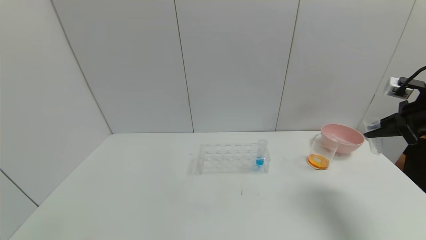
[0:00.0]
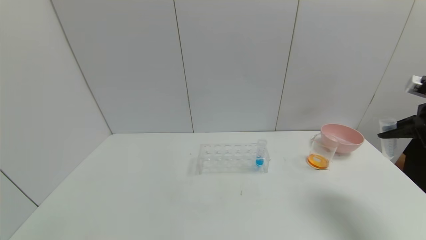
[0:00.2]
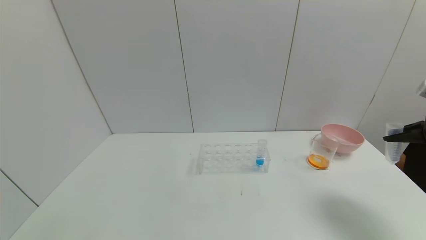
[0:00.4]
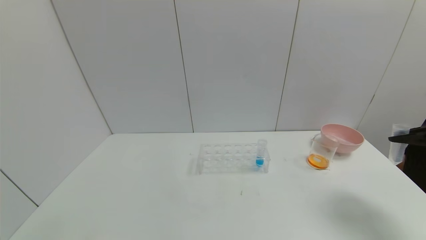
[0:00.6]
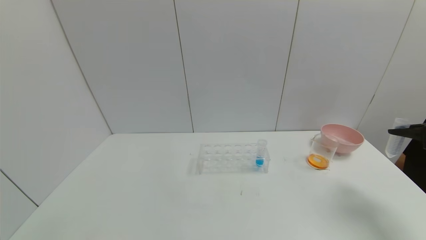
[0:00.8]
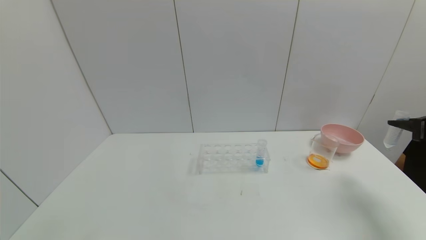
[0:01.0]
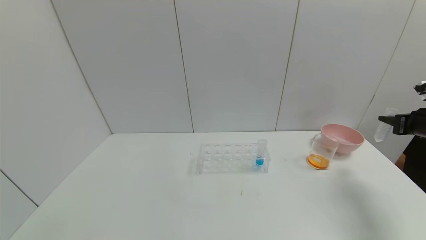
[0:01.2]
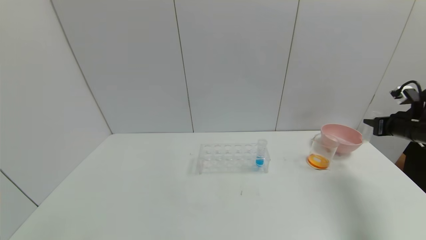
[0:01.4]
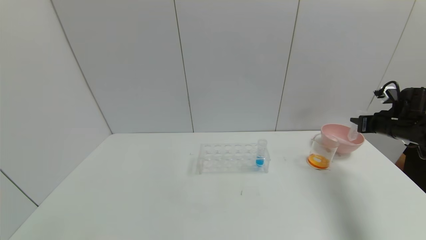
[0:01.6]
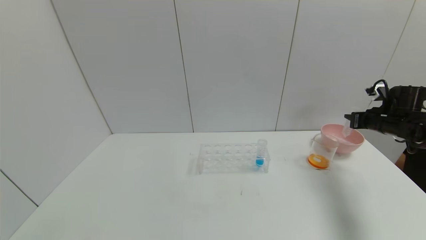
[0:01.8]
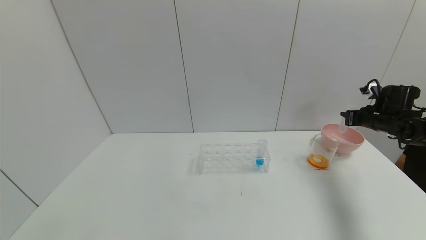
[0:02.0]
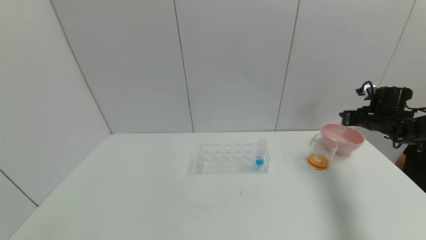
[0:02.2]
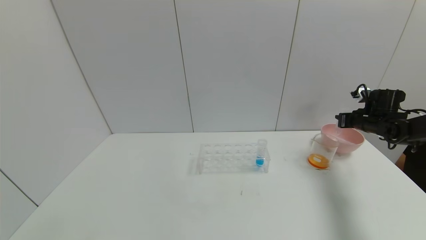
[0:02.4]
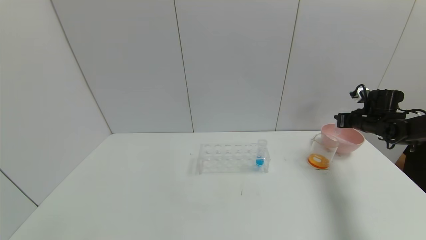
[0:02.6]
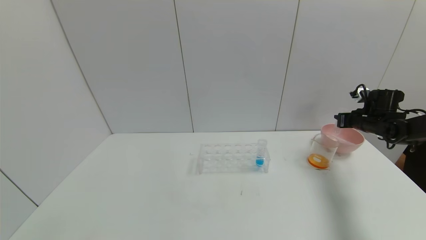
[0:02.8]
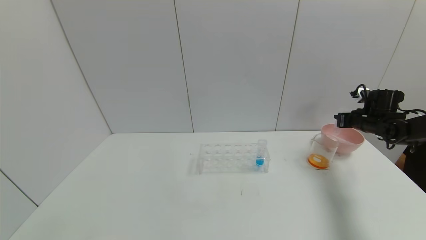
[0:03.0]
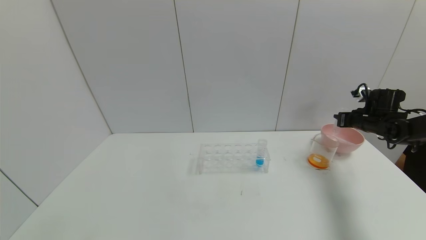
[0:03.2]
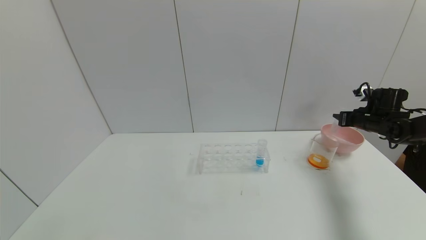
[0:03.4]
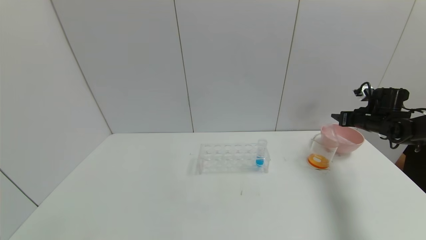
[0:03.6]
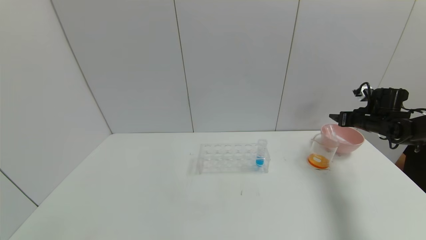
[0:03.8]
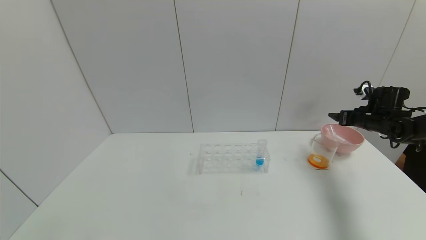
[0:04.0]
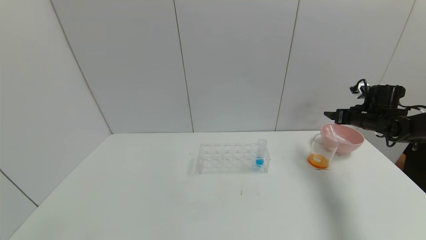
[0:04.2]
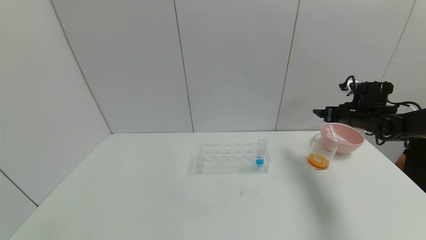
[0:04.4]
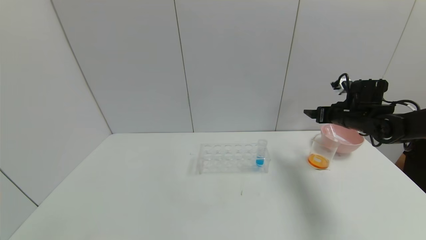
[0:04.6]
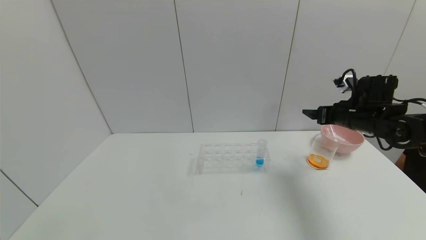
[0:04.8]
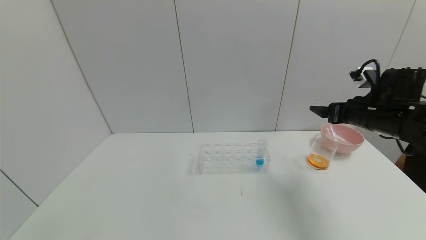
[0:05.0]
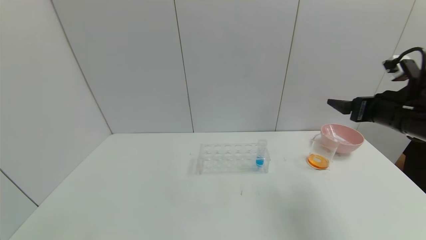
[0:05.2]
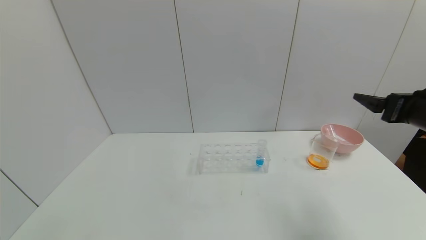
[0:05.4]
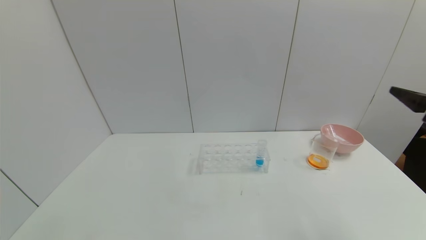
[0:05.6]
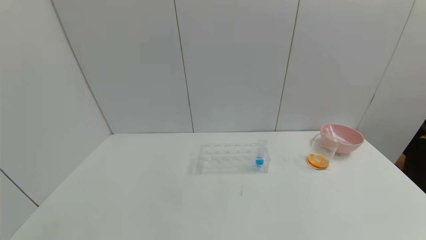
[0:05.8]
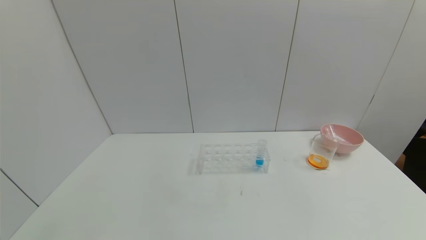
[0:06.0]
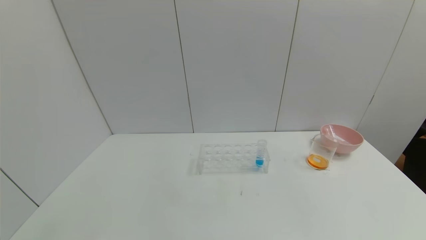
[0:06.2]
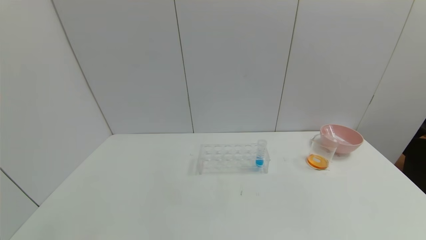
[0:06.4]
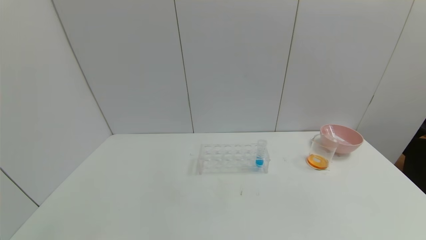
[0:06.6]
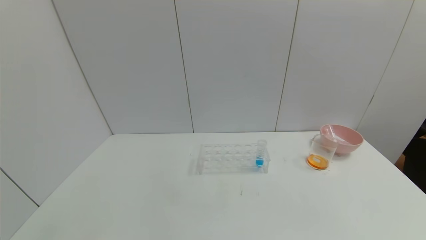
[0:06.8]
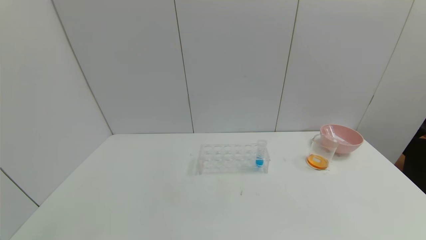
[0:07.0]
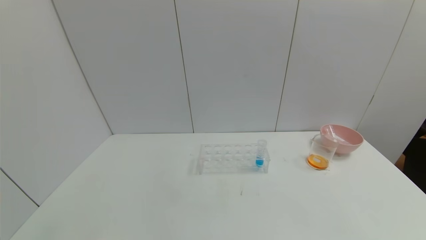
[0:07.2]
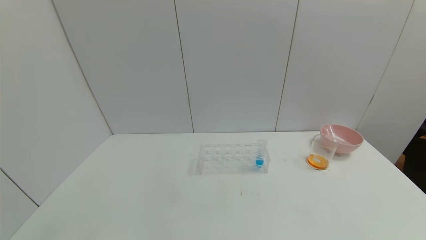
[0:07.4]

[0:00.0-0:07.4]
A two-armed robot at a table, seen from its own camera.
Task of the whole recording: pick up the test tube with yellow pigment and the test tube with red pigment by grippers and pour them into the beaker.
Step, 0:00.0 to 0:03.6: Place the test tube into the pink bowl with the right gripper.
0:00.0 to 0:01.4: The right gripper moves downward and forward, approximately 10 cm.
0:01.4 to 0:03.0: The right gripper moves forward, approximately 10 cm.
0:03.0 to 0:04.4: The right gripper goes some 5 cm to the left, and opens its fingers.
0:04.4 to 0:06.0: The right gripper travels backward by roughly 40 cm.

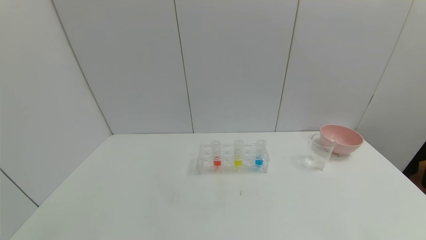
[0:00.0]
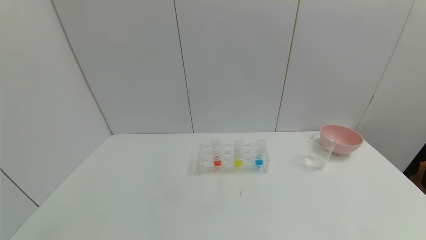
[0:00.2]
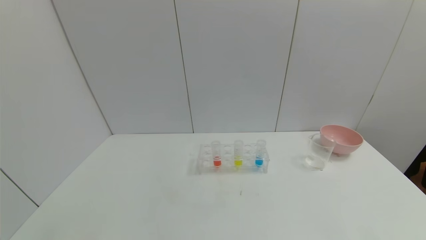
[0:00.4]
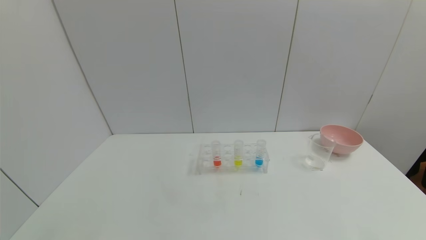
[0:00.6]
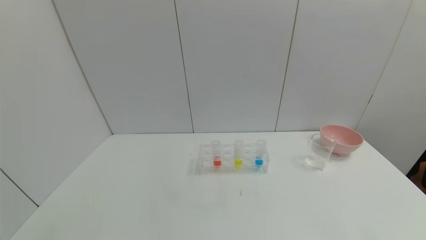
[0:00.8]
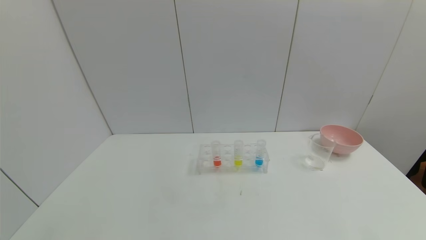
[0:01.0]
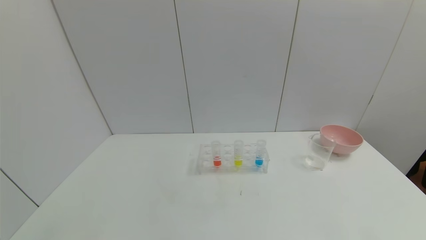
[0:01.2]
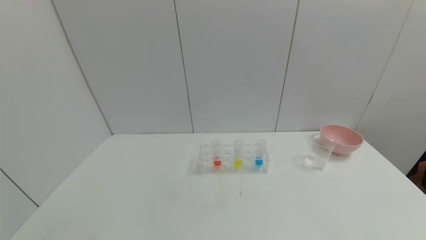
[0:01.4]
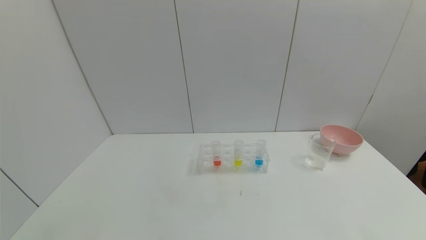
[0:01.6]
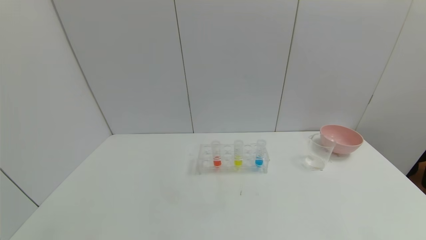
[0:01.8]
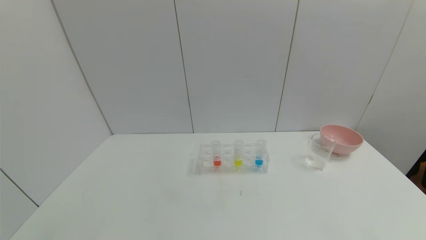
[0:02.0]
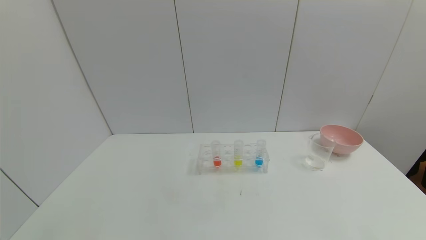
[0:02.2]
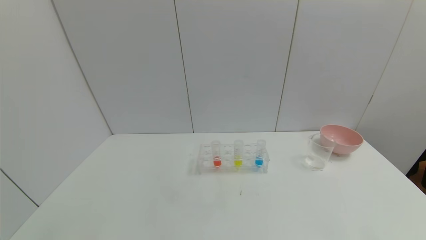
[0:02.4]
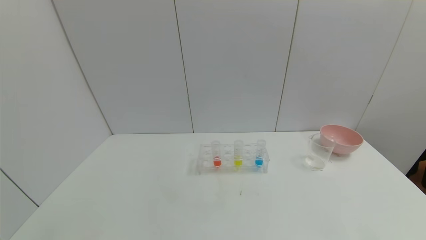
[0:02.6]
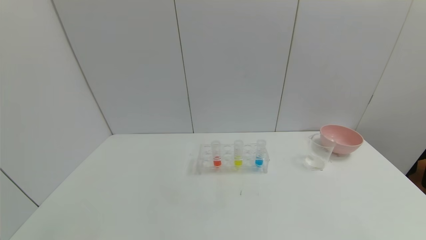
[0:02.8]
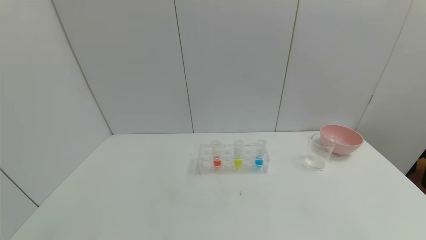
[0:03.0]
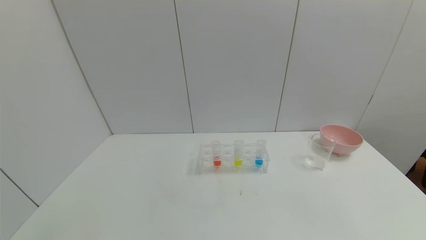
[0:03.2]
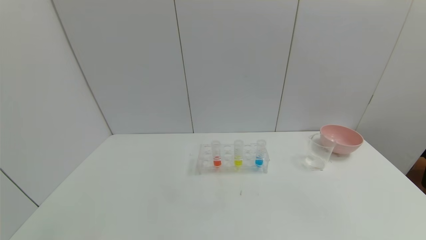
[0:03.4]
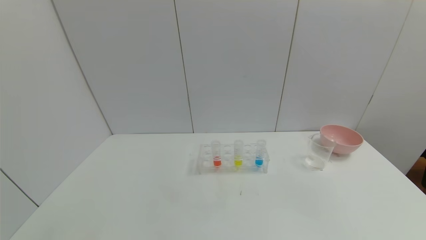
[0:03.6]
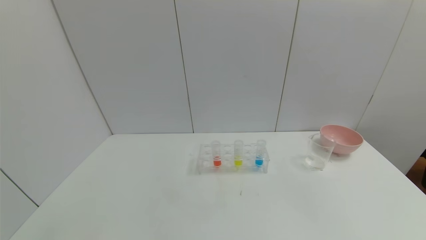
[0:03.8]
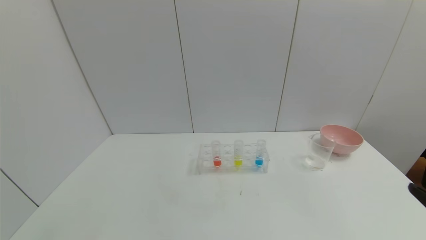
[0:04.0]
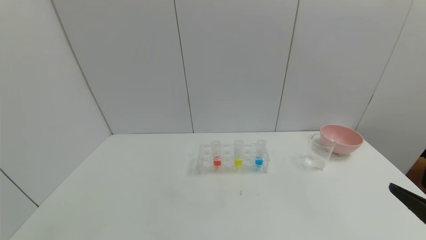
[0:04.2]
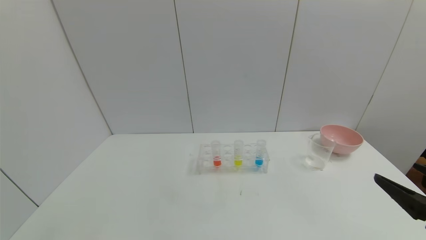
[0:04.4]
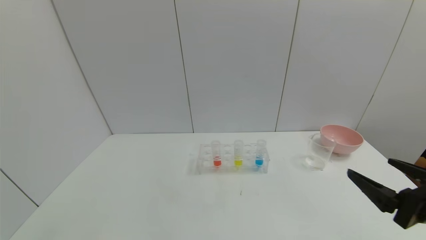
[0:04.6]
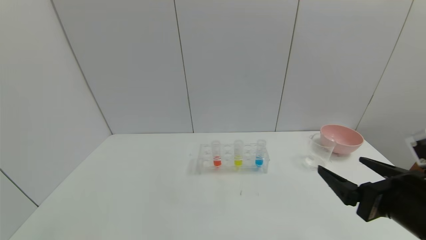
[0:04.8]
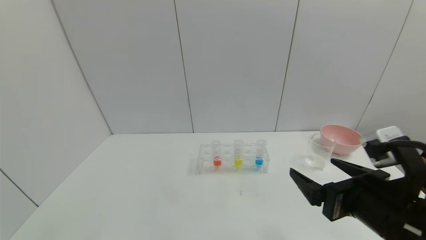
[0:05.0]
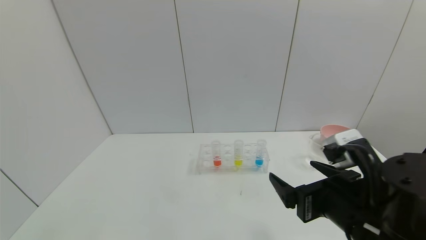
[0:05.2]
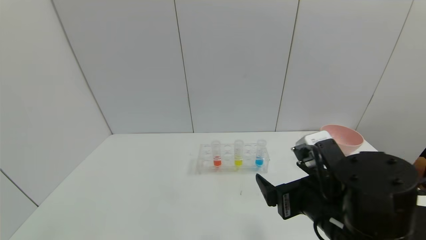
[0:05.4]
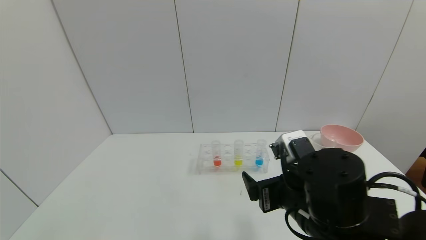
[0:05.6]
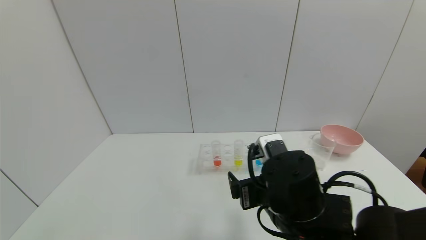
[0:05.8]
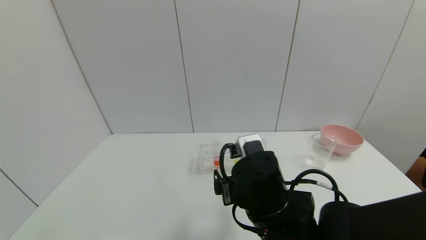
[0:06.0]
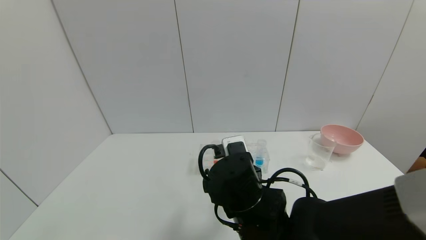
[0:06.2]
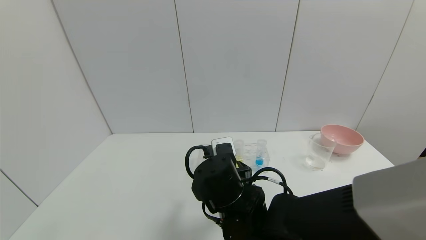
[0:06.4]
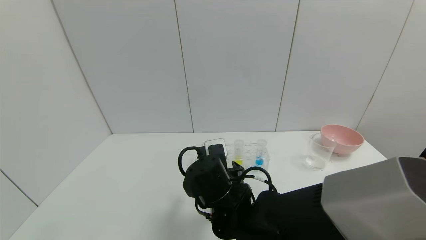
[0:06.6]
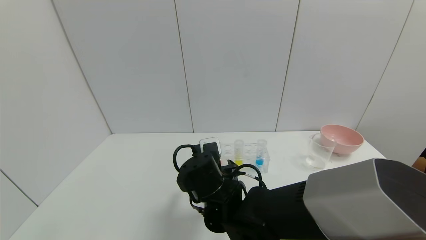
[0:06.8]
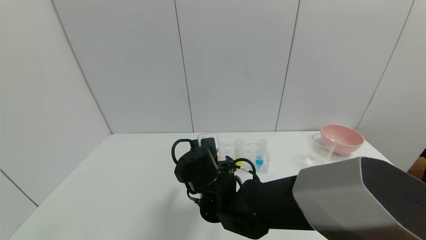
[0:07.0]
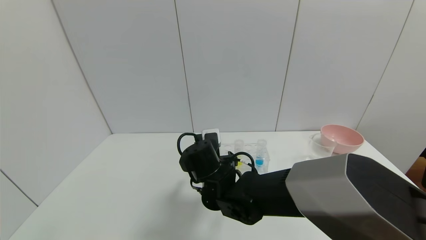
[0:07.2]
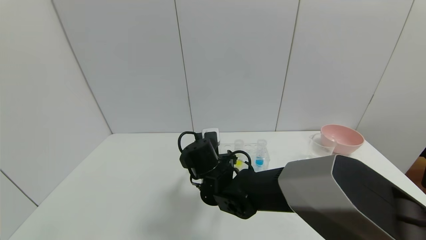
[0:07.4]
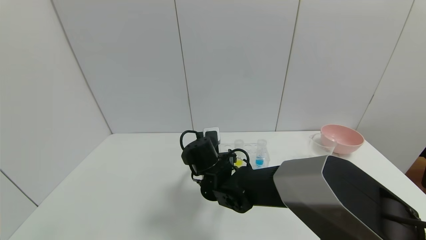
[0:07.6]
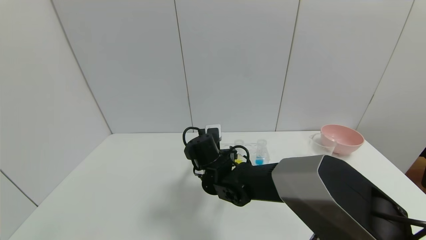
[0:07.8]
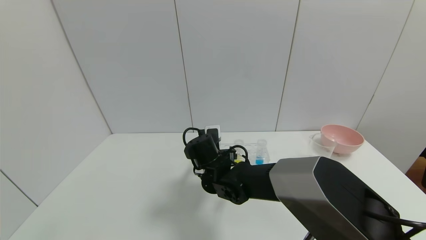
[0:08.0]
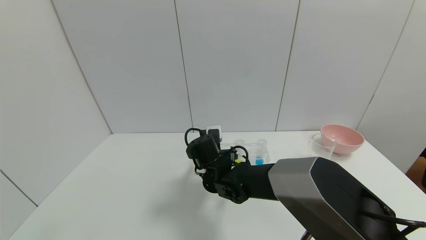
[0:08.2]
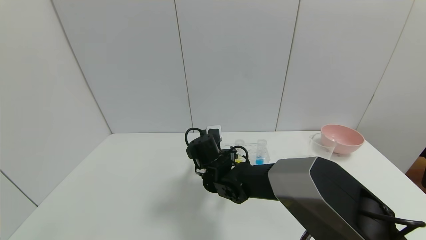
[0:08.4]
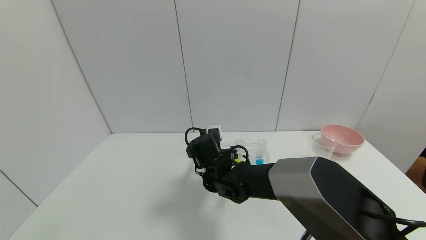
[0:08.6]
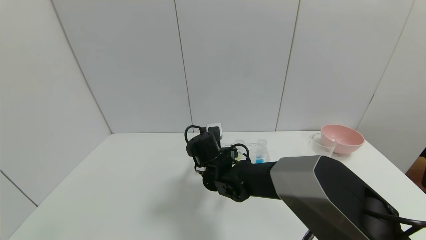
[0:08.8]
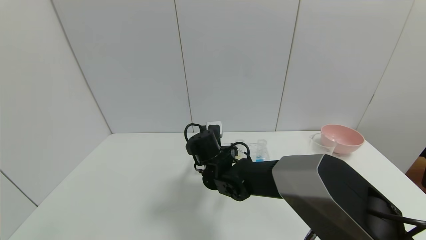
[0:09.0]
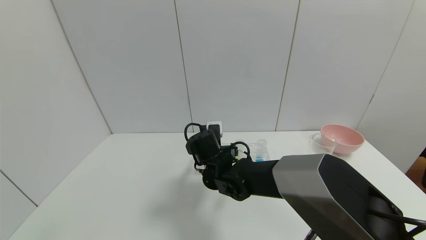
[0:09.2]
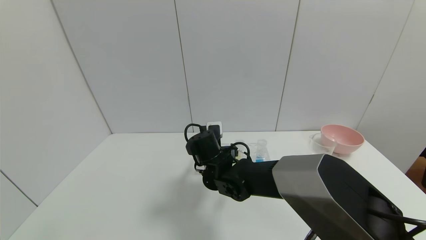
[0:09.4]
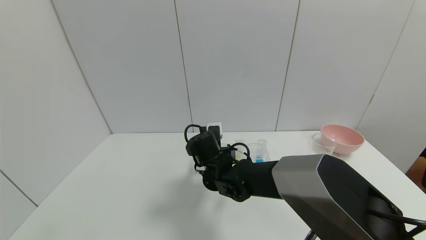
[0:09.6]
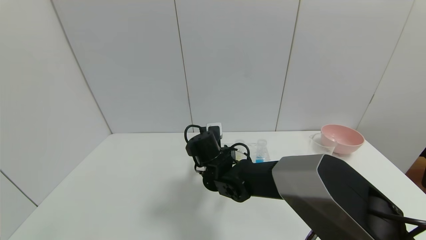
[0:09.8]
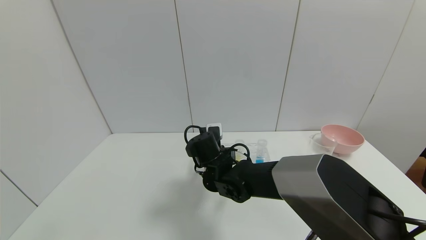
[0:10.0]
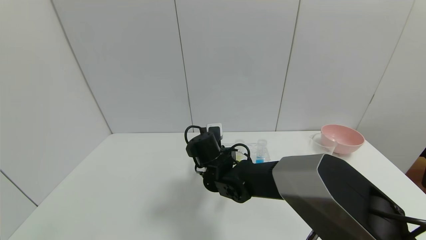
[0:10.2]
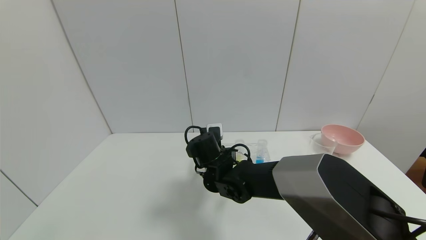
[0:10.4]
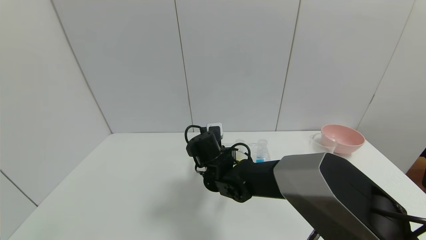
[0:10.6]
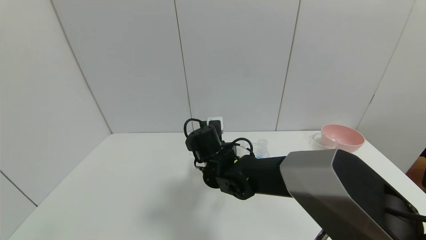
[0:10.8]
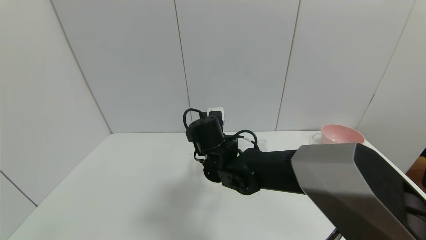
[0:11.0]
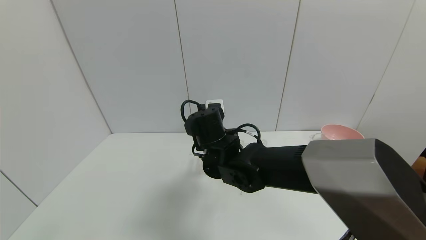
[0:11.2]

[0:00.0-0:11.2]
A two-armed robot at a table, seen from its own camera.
Task of the whole recording: pick up the test tube with yellow pigment and the test tube with red pigment by grippers and pour them into the beaker.
Step, 0:00.0 to 0:10.4: Grasp the red reagent with the right gripper.
0:00.0 to 0:01.6: Neither gripper changes place.
0:03.2 to 0:04.8: The right gripper shifts roughly 20 cm forward and to the left.
0:04.8 to 0:06.4: The right gripper heads to the left and forward, covering approximately 25 cm.
0:06.4 to 0:08.0: The right gripper is displaced forward by some 10 cm.
0:08.0 to 0:09.6: The right gripper closes its fingers.
0:09.6 to 0:11.2: The right gripper shifts roughly 5 cm upward, and closes its fingers.
